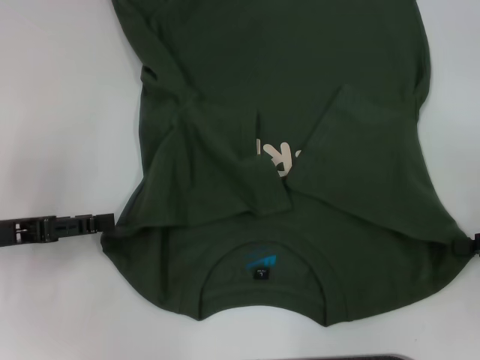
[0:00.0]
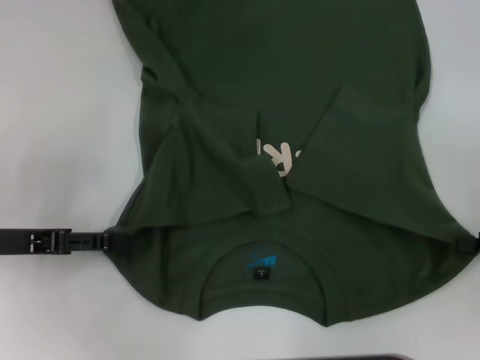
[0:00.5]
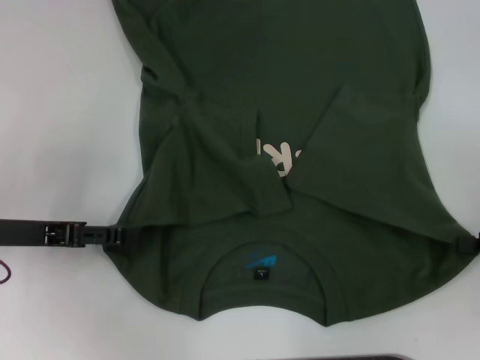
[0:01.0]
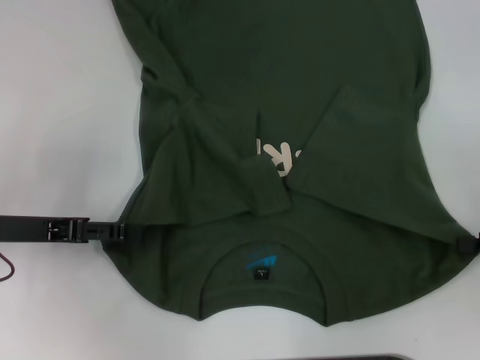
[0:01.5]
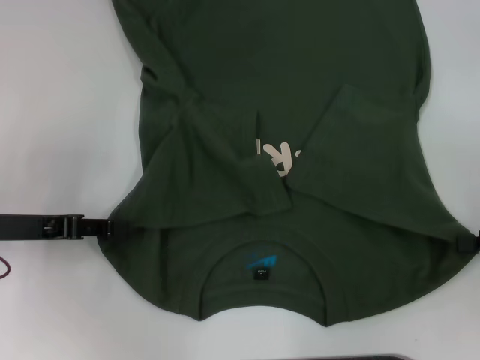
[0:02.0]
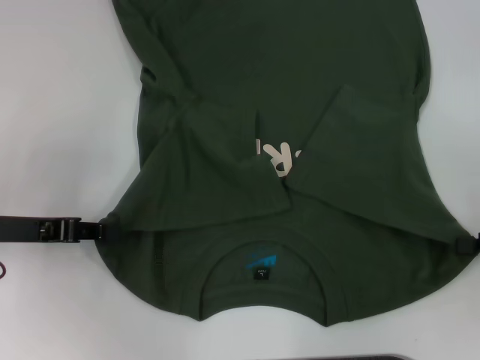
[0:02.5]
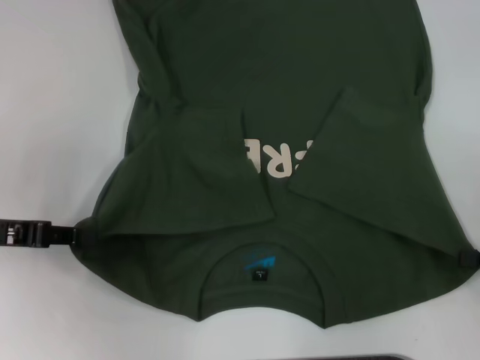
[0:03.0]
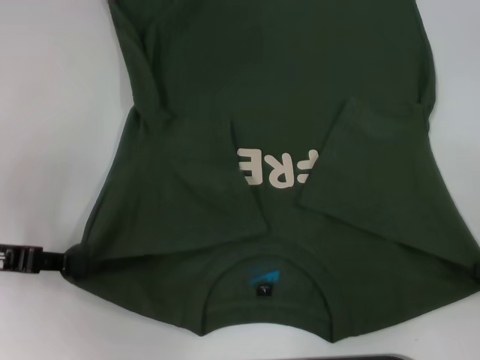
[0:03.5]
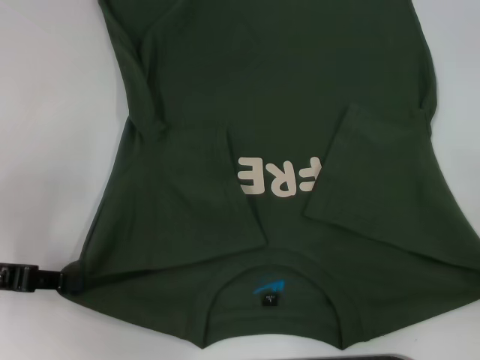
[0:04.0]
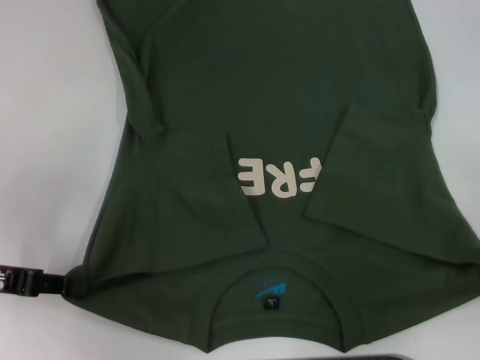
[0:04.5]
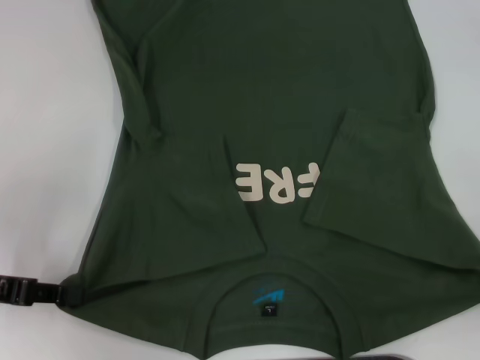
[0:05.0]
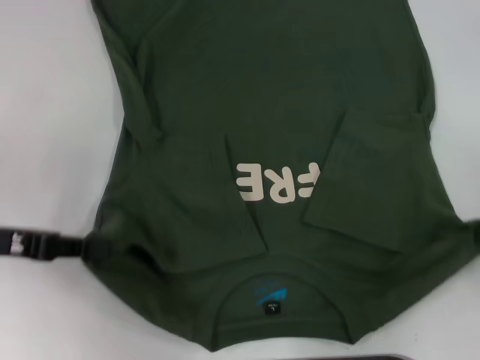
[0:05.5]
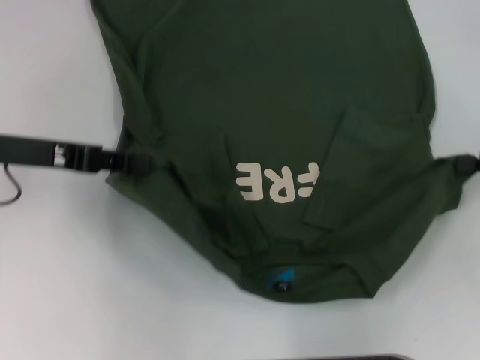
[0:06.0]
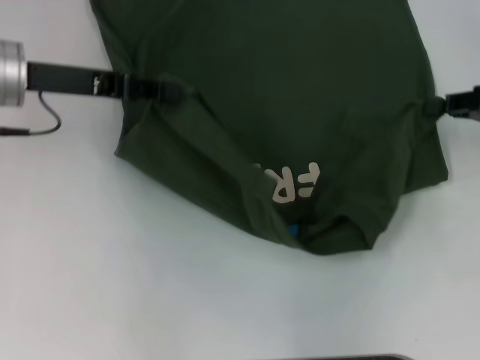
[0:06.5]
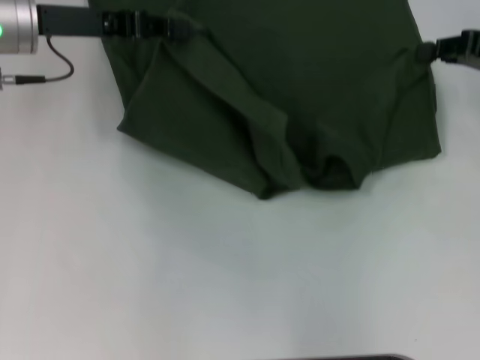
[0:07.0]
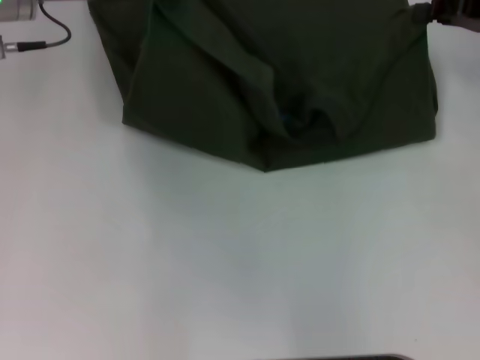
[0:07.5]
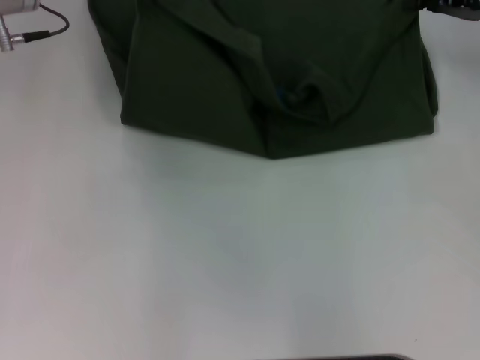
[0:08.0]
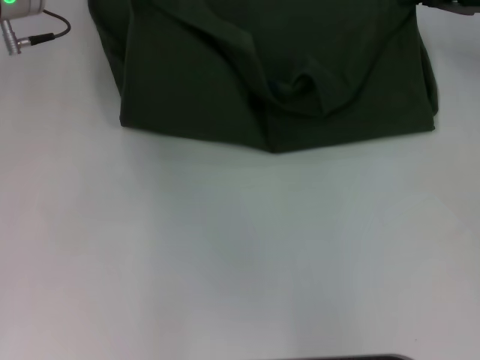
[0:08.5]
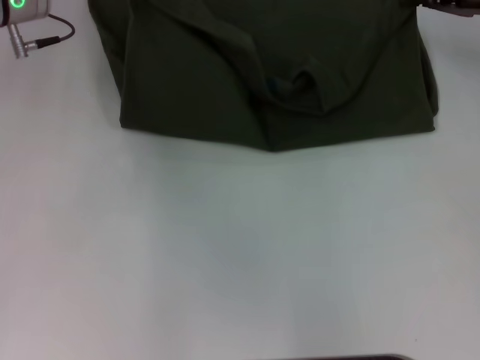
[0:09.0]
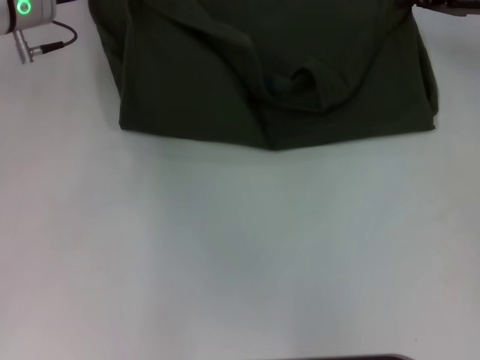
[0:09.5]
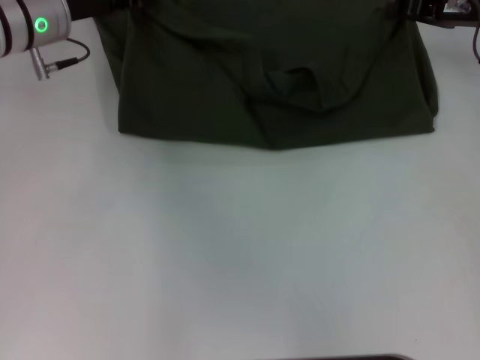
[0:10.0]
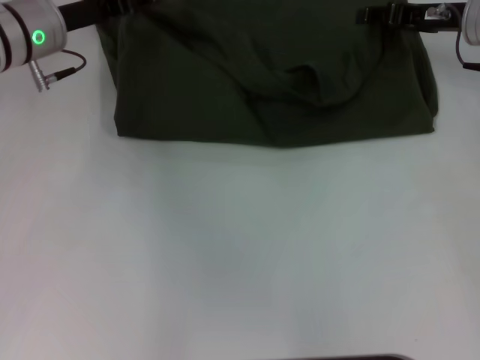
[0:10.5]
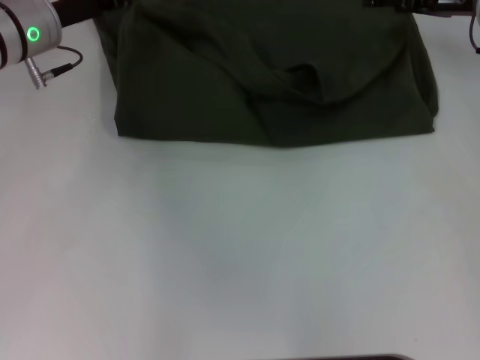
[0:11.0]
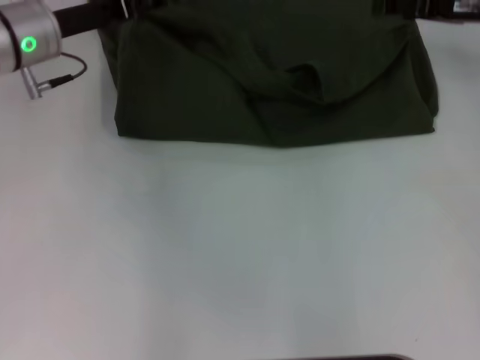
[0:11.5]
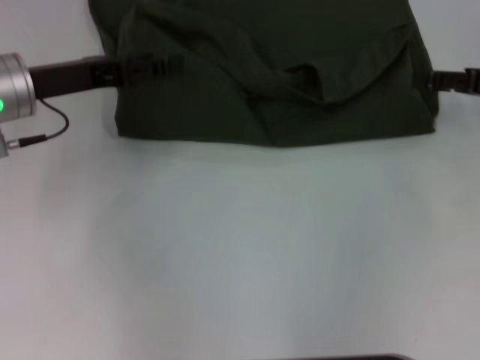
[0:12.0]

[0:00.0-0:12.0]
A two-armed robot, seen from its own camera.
Step, 0:00.0 to 0:03.0: Grab the bottom left corner with your left hand.
0:00.0 to 0:02.0: There are only small adjustments of the grippers.
0:02.0 to 0:04.0: The left gripper moves approximately 5 cm, and closes up. The right gripper moves backward, roughly 5 cm.
0:04.0 to 0:06.0: The right gripper goes approximately 10 cm forward. The left gripper travels forward, to the right and upward by roughly 10 cm.
0:06.0 to 0:08.0: The right gripper travels forward and to the left by about 15 cm; the left gripper goes roughly 10 cm forward.
0:08.0 to 0:10.0: The grippers stay close to where they were, moving slightly.
0:10.0 to 0:12.0: The right gripper is displaced backward and to the right by approximately 10 cm, and opens, while the left gripper is displaced backward by some 10 cm, and opens.

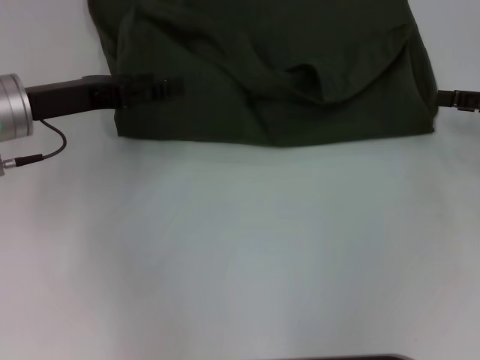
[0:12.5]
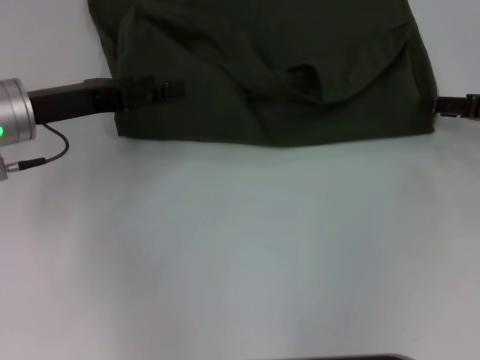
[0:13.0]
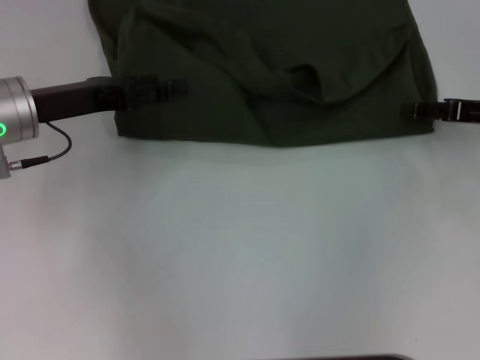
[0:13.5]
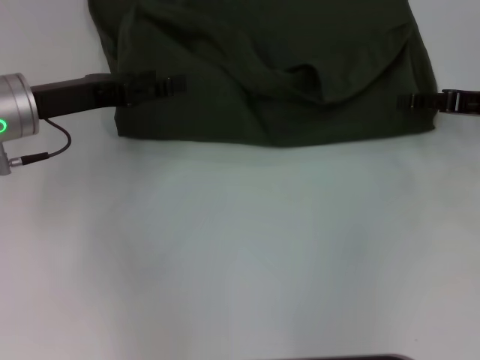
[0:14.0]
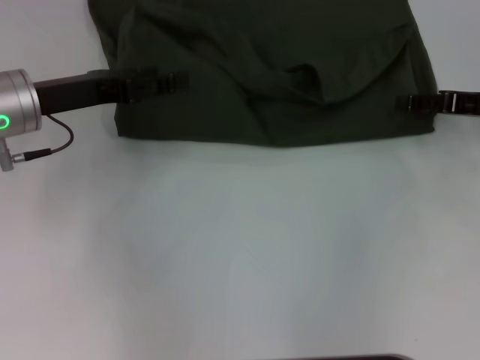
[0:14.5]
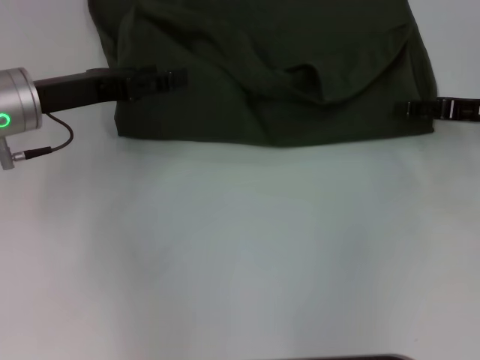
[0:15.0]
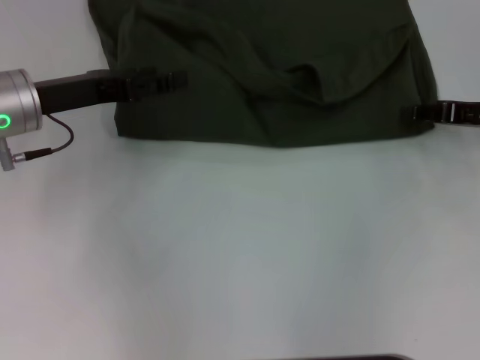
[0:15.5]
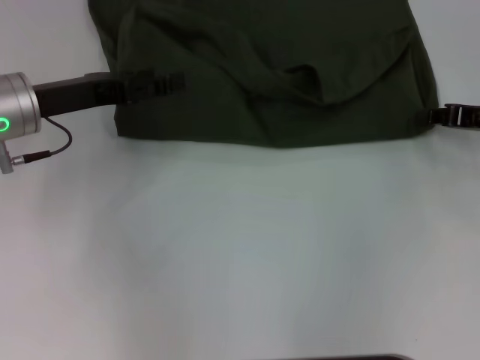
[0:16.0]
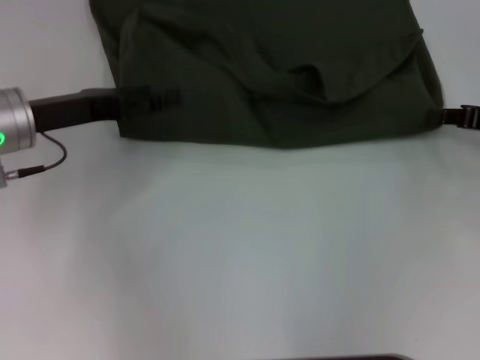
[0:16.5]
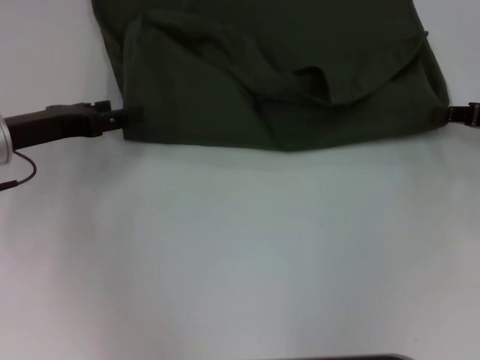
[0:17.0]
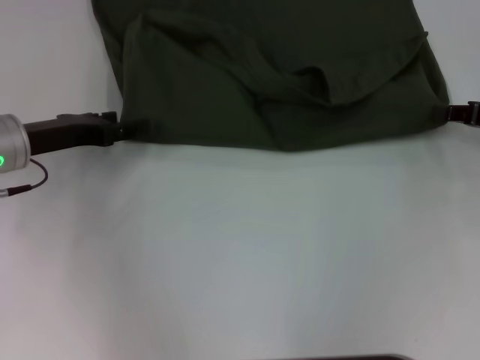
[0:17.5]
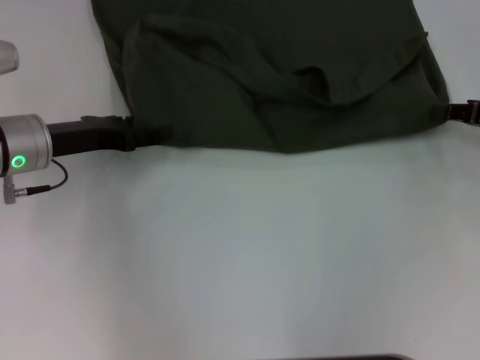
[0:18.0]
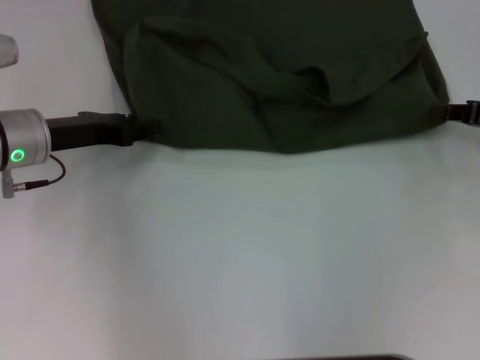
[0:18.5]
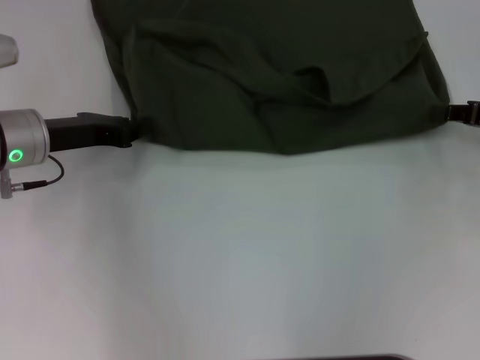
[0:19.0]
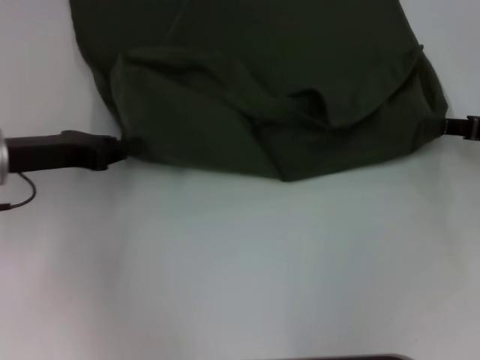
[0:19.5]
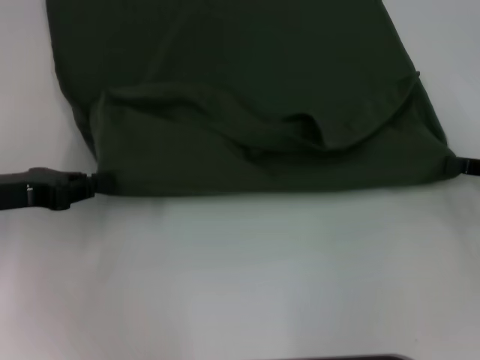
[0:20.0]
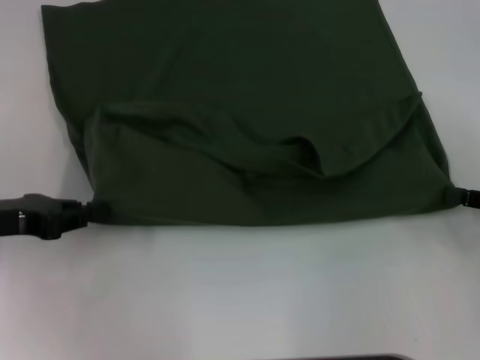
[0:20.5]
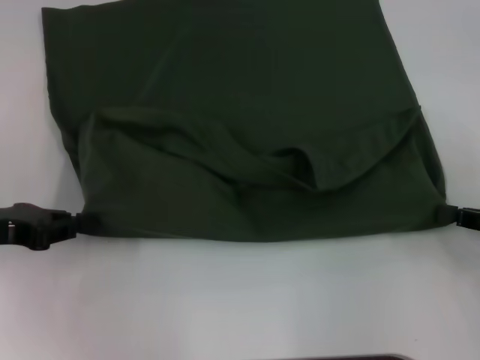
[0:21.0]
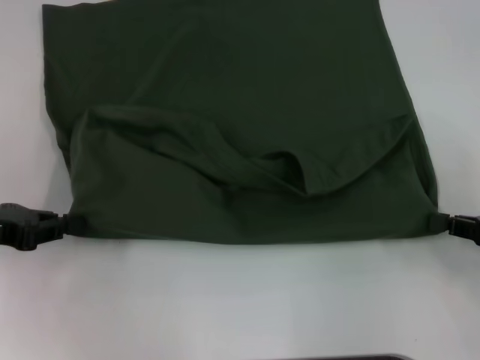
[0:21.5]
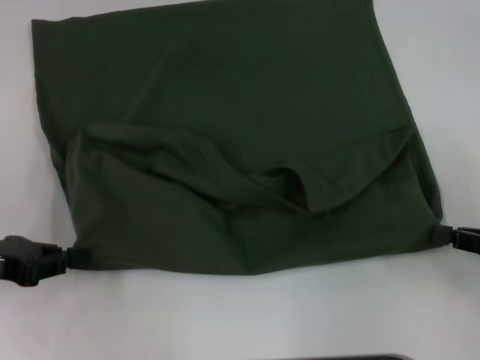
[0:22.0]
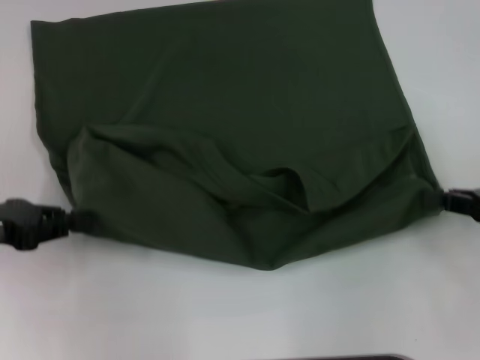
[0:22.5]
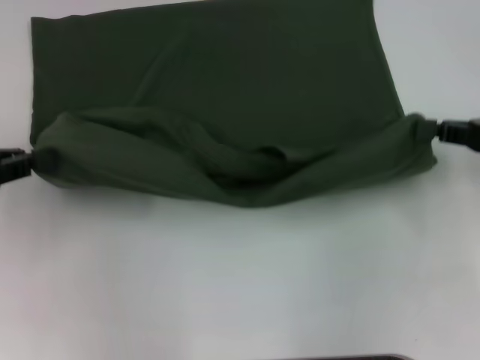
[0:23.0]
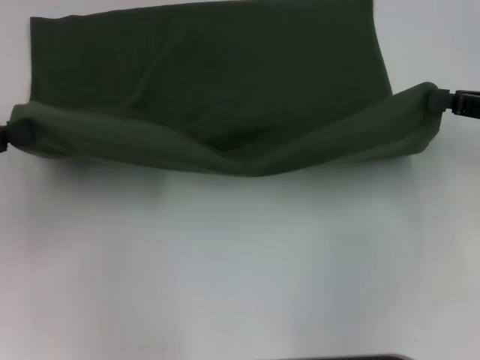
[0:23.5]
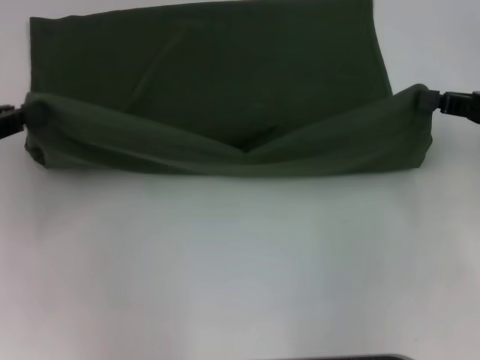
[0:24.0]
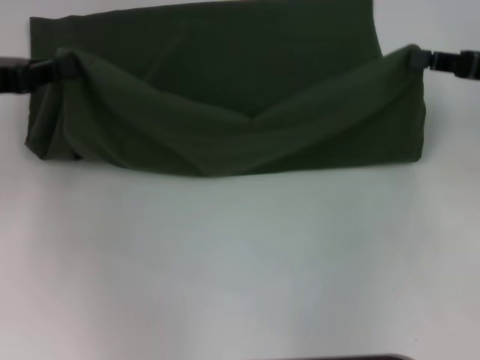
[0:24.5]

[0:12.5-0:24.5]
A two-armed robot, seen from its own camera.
Step, 0:12.5 to 0:20.5: Pull the clothes with your left hand.
Step, 0:12.5 to 0:20.5: Pull the clothes with your right hand.
0:14.5 to 0:16.5: The right gripper closes its fingers.
0:16.5 to 0:18.5: The grippers move only a little.
0:18.5 to 0:20.5: The right gripper shifts some 10 cm backward. The left gripper travels backward and to the left by about 10 cm, and closes its fingers.
0:20.5 to 0:22.5: The grippers make only small movements.
0:22.5 to 0:24.5: The left gripper travels forward by roughly 10 cm, while the right gripper heads forward and upward, covering some 10 cm.

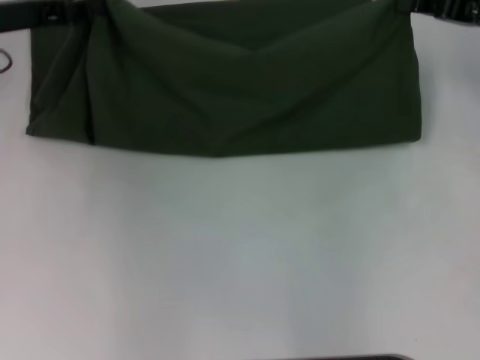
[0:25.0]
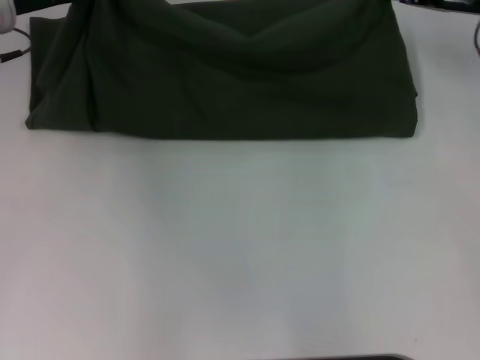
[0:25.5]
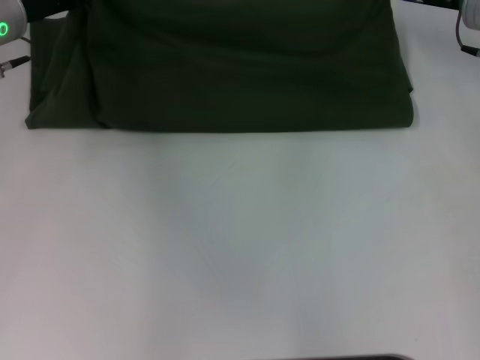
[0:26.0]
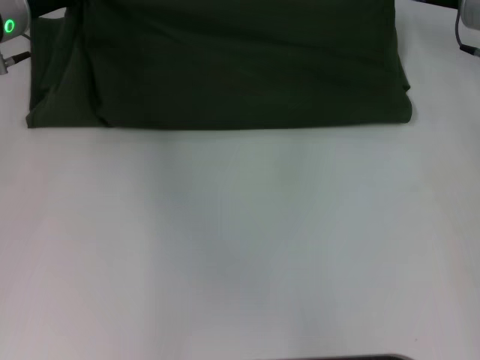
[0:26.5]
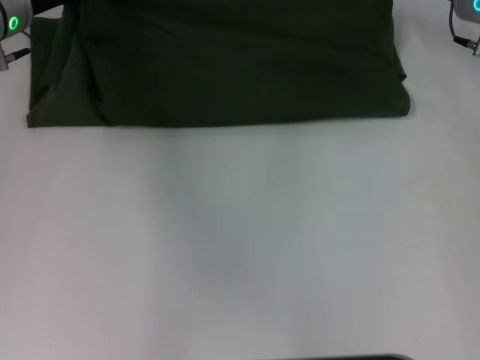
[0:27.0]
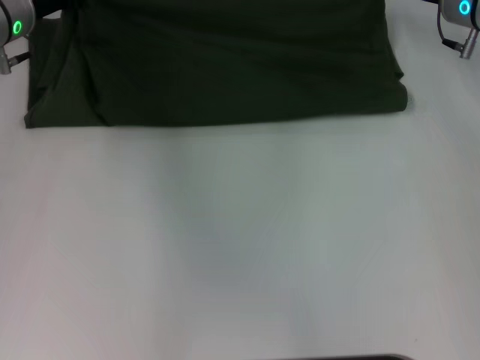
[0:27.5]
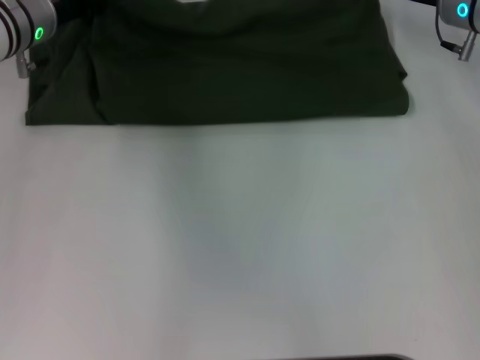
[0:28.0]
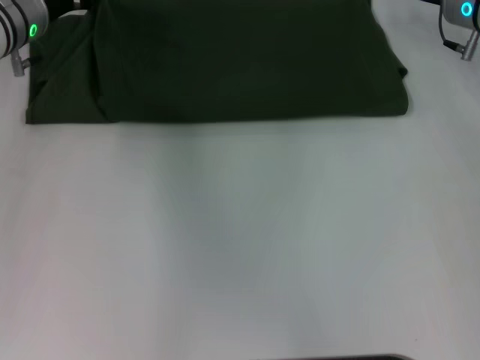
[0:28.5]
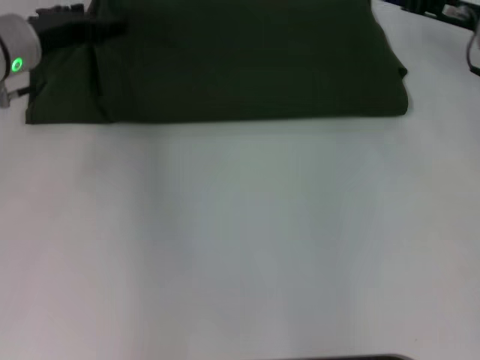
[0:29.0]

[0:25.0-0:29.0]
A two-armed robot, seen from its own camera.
0:25.0 to 0:27.0: The right gripper heads forward and to the left, covering some 10 cm. The left gripper ends up some 5 cm from where it was.
0:27.0 to 0:29.0: The left gripper opens its fingers; the right gripper opens up.
